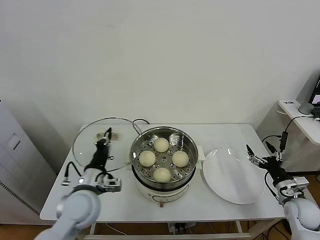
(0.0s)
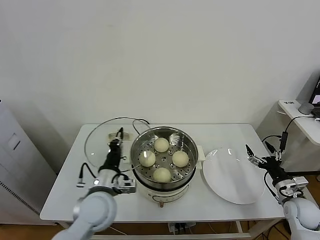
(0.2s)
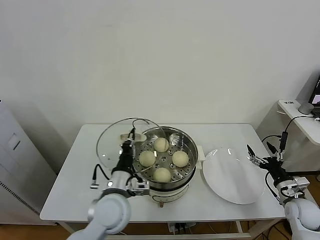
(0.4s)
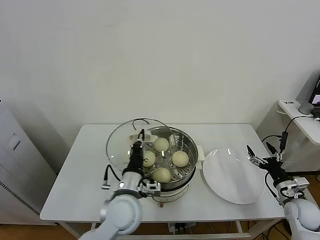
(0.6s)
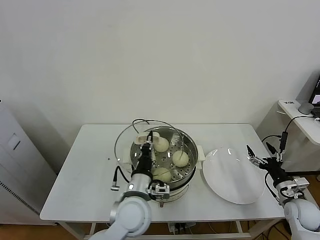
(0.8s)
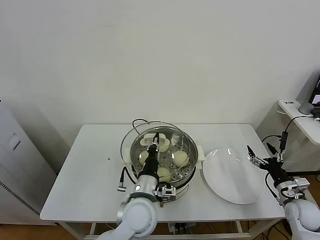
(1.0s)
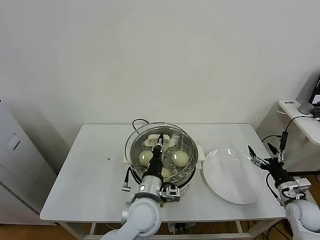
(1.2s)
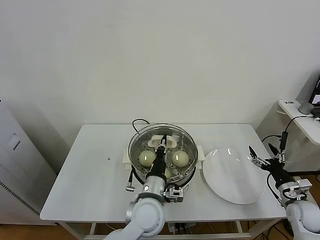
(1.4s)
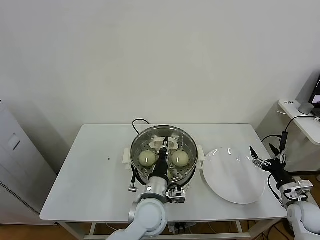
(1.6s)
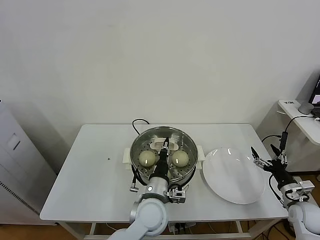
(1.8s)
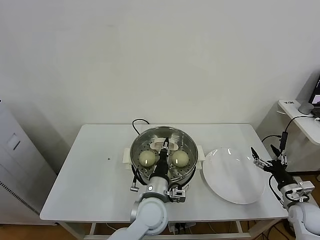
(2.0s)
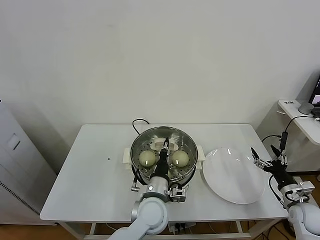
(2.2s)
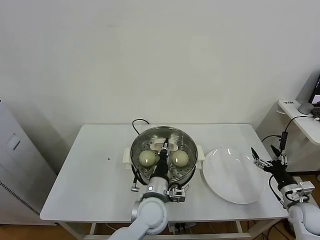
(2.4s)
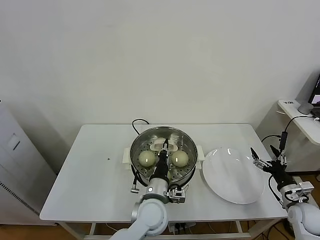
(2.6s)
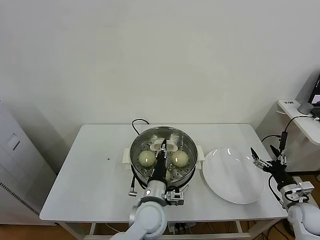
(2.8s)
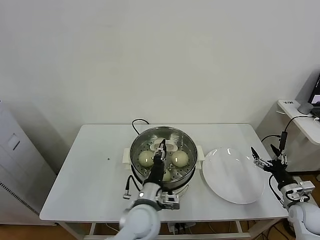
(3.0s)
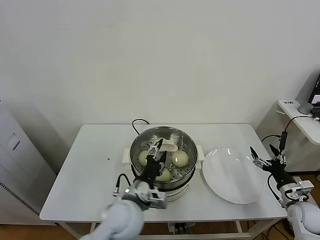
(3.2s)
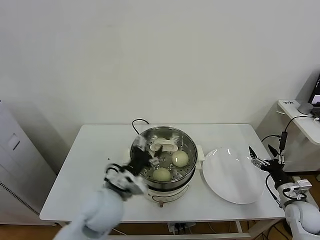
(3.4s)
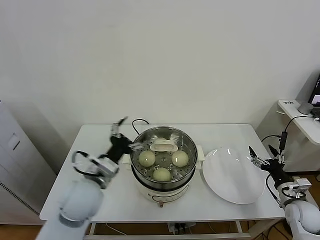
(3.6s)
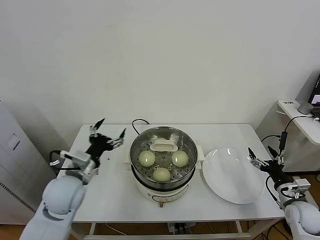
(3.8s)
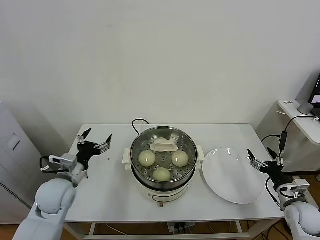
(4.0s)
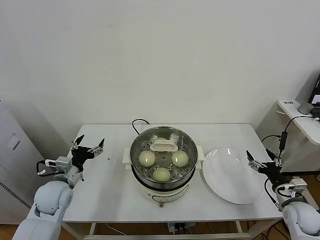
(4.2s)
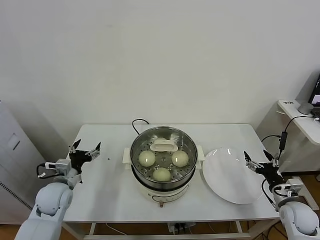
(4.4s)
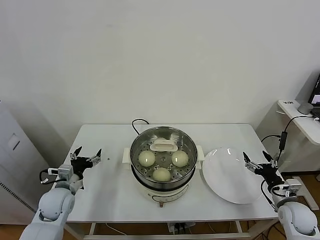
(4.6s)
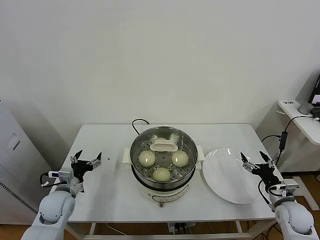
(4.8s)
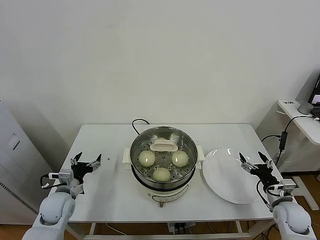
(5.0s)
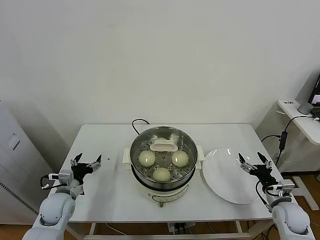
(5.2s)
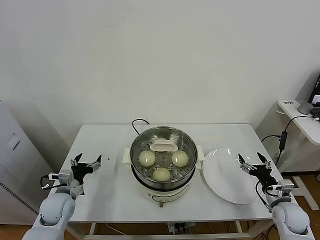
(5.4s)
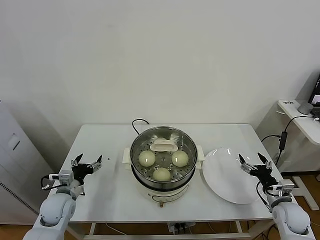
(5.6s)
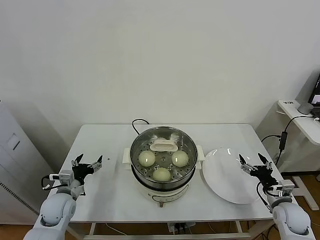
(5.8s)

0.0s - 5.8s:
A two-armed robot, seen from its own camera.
Task of the whole recording: take steamed baozi put them in steamer.
Step, 0.0s - 3.4s: Place the pot lid on the steamer with left gripper.
0.0s - 1.4s: The left gripper heads to the right, covering some 20 cm.
1.4s - 2.8s: The grippers move only a little.
2.8s - 4.4s: The left gripper heads to the left, covering roughly 30 cm, and opens.
4.4s - 5.8s: The grippers stay close to where they were, moving slightly.
